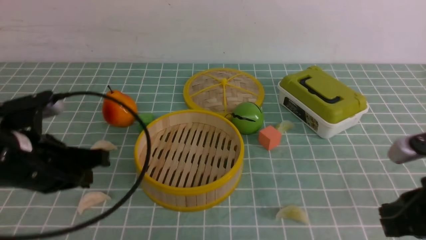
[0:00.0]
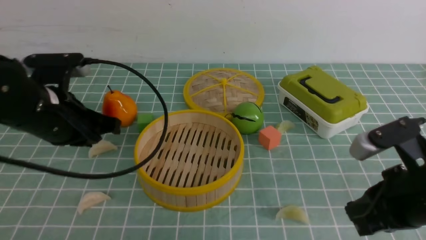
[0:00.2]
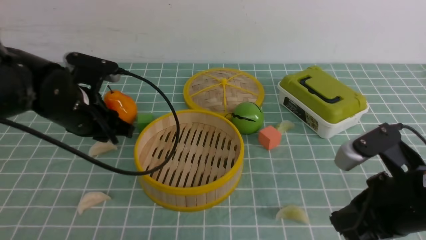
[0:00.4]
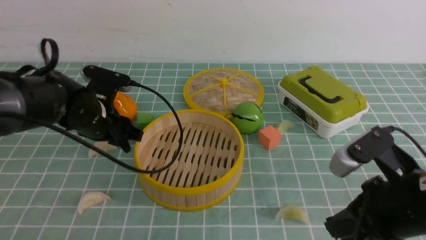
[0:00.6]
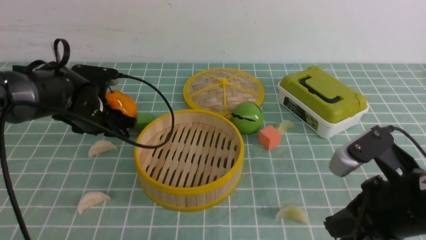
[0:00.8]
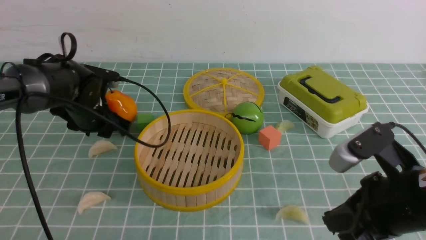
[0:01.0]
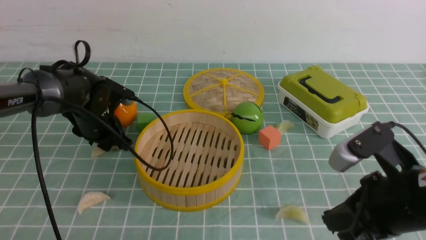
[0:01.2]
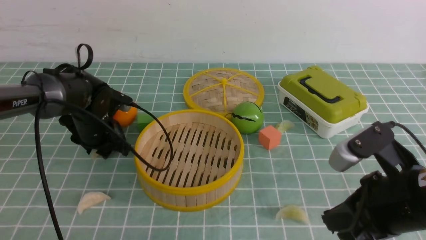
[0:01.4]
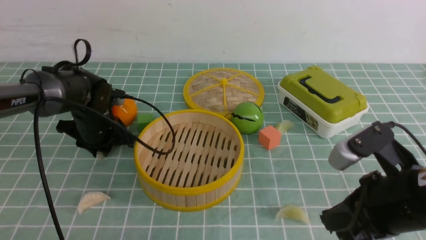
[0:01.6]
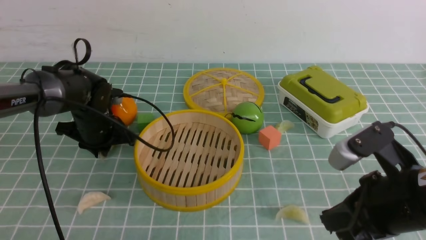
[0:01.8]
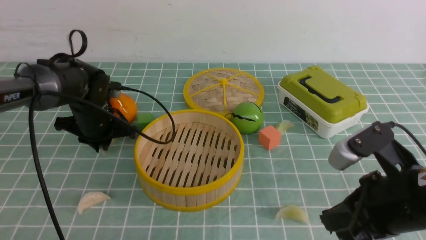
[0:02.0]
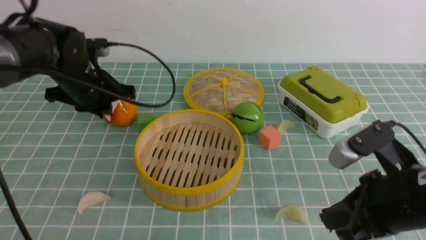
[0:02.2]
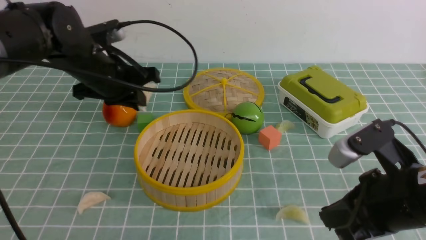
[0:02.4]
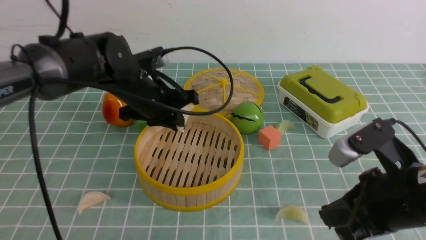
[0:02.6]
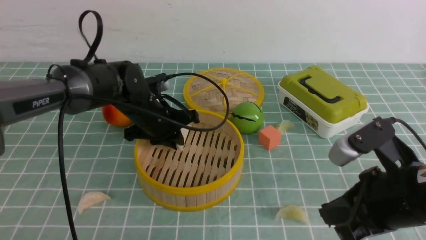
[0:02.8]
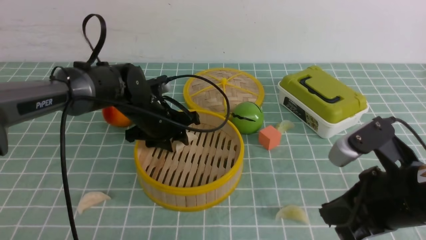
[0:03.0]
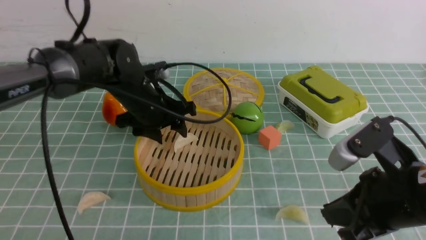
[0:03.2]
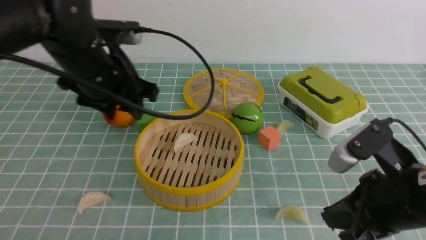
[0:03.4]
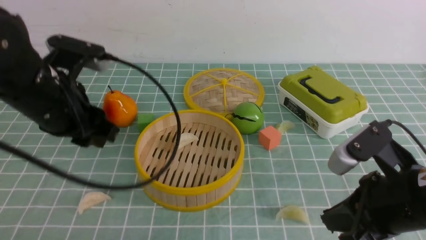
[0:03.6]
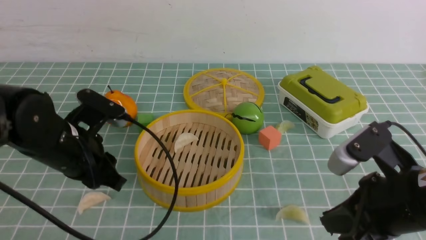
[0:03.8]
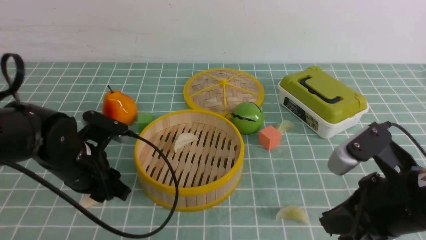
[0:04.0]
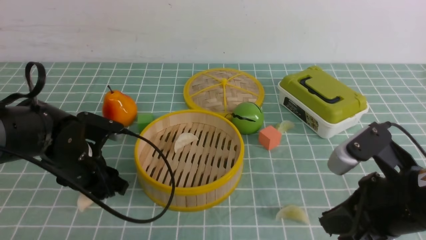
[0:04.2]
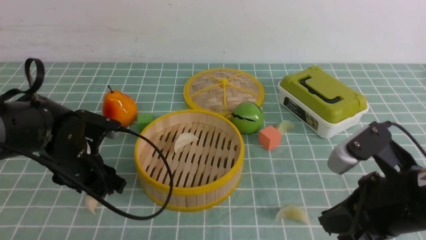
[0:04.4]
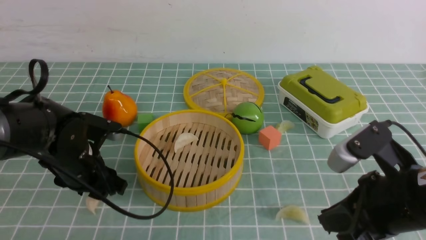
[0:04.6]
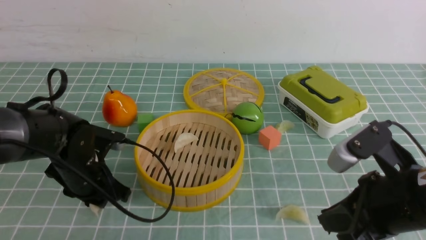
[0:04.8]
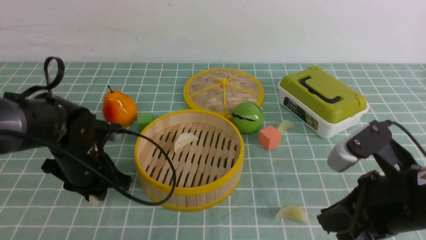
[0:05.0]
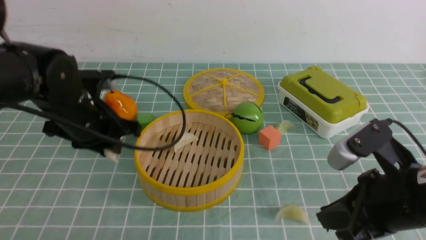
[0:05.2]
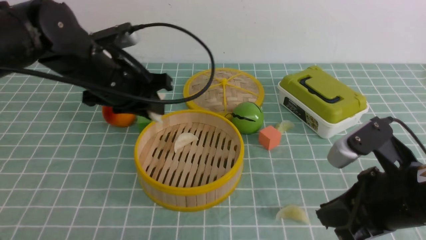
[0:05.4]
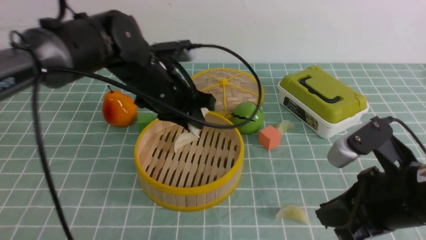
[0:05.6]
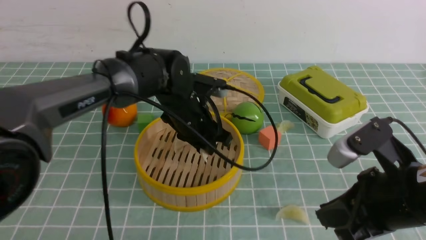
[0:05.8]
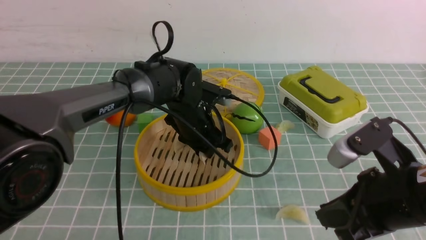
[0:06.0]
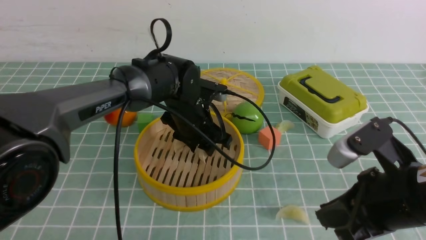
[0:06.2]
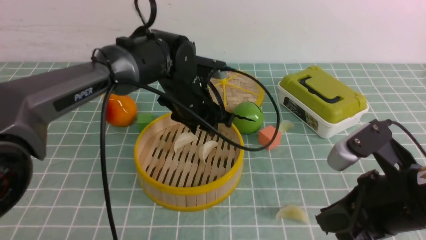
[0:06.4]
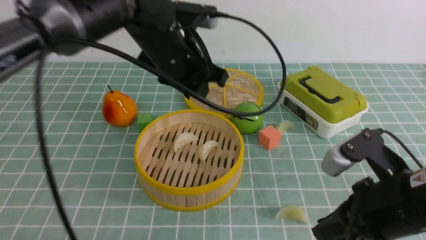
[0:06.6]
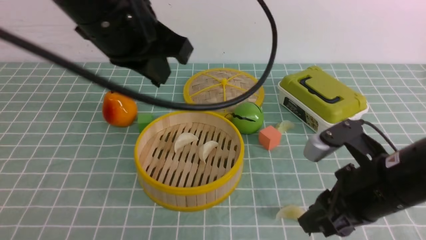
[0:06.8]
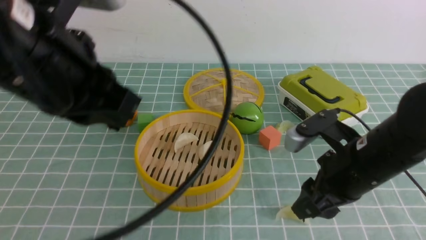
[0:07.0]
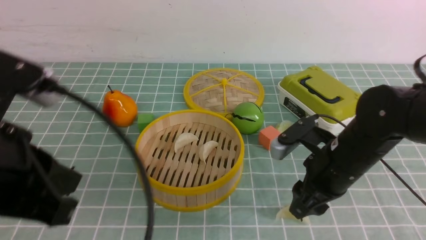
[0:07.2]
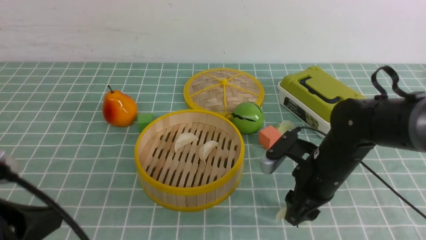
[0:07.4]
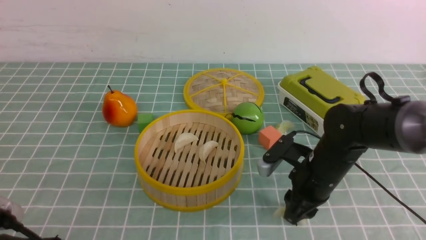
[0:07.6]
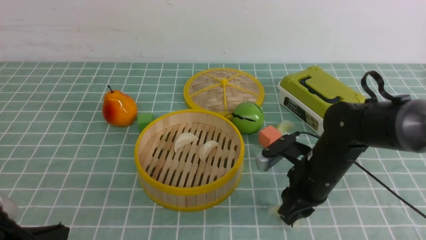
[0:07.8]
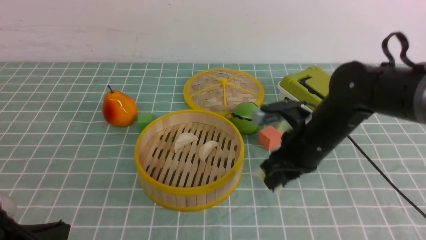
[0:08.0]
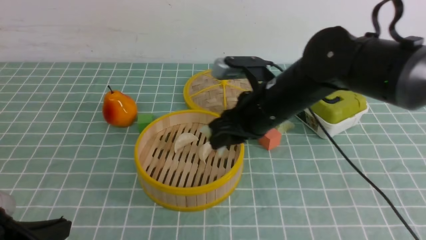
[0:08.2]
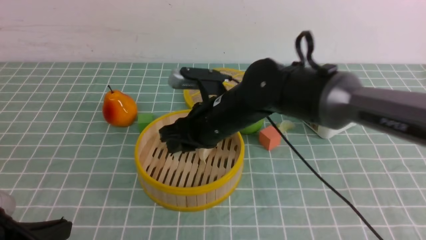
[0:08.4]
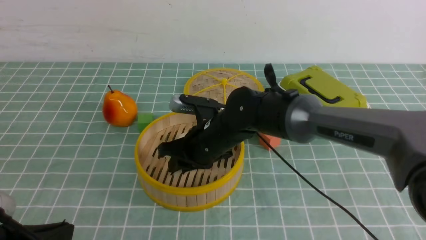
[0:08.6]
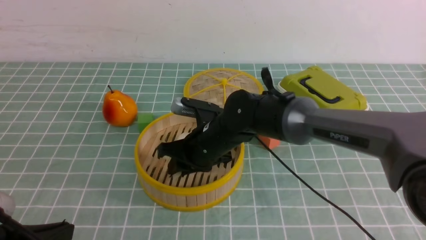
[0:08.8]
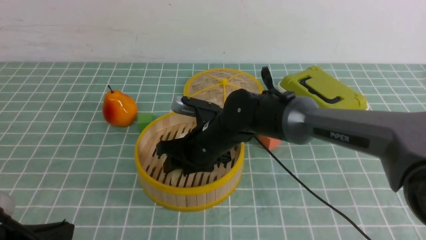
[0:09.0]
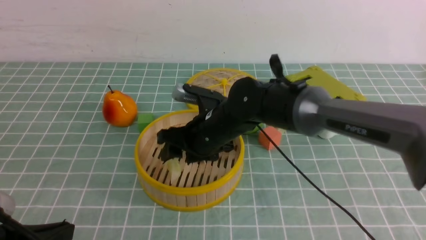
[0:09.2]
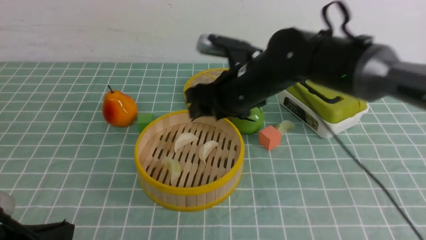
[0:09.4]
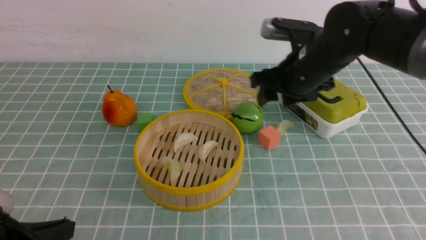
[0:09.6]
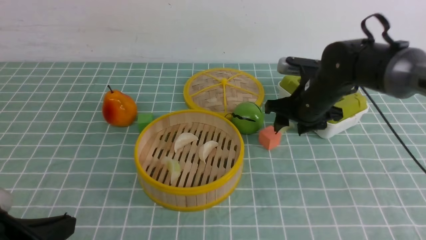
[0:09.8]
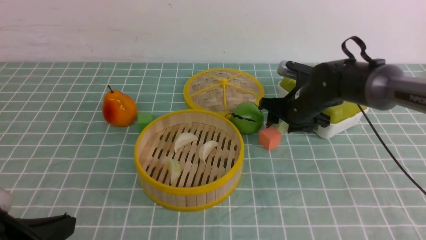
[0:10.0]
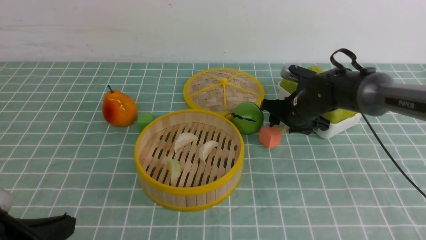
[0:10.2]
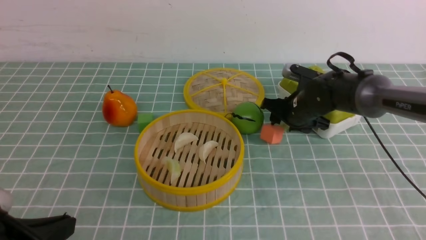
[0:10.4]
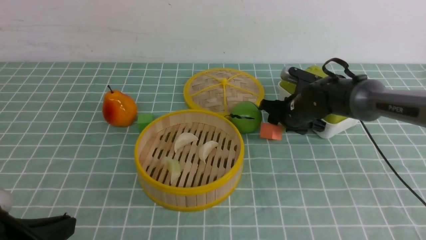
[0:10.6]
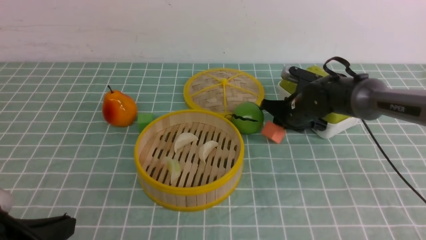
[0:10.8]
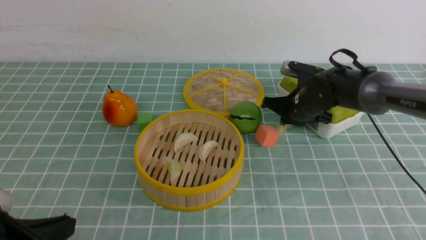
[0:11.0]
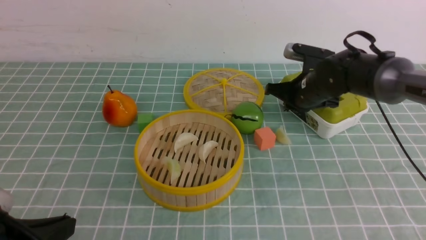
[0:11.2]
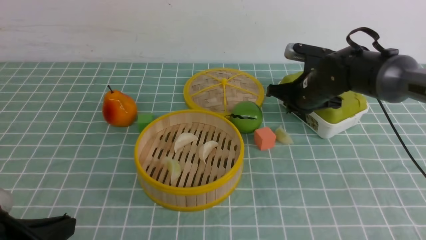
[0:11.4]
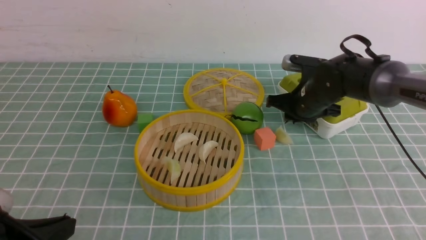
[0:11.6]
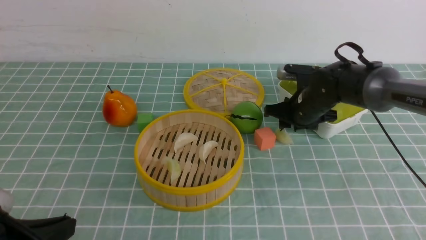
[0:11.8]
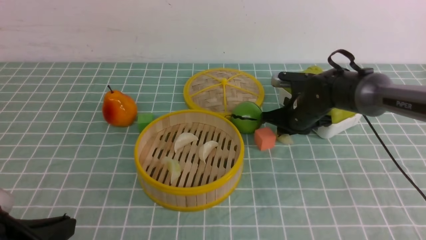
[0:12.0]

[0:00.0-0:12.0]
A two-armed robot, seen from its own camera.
Task of the whole recording: put the dumplings into the steamer on the table with the blue tablecloth.
Step, 0:02.0 to 0:03.0: use the left arm to put the dumpling into the steamer.
Step, 0:03.4 to 0:04.8: use the left arm to grab a dumpling.
Step, 0:05.0 to 0:06.4: use the left arm to put the dumpling into the steamer.
Step, 0:06.6 to 0:07.6: use the right arm to grab a dumpling.
Step, 0:08.0 to 0:09.2: use the right arm to put the dumpling into the steamer.
0:00.0 to 0:01.6: The right gripper shifts approximately 5 cm to the left. Meanwhile the left gripper goes some 20 cm forward and downward, and opens.
0:01.6 to 0:03.0: The left gripper shifts roughly 10 cm to the right, and opens up.
0:03.0 to 0:04.4: The left gripper travels backward and to the left by approximately 15 cm, and moves about 10 cm upward and comes back.
0:04.4 to 0:06.0: The left gripper shifts approximately 20 cm to the right and forward.
0:06.0 to 0:07.6: The left gripper shifts approximately 35 cm backward and to the left, and closes. Meanwhile the right gripper is displaced forward and downward by some 15 cm, and opens its fingers.
0:07.6 to 0:09.0: The right gripper heads to the left, covering roughly 15 cm.
0:09.0 to 0:10.4: The right gripper shifts about 20 cm to the right and forward.
0:10.4 to 0:12.0: The right gripper closes up.

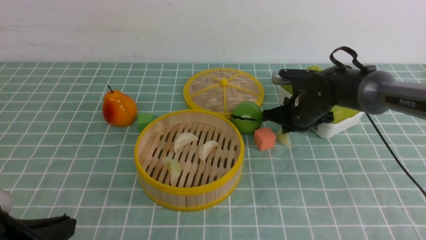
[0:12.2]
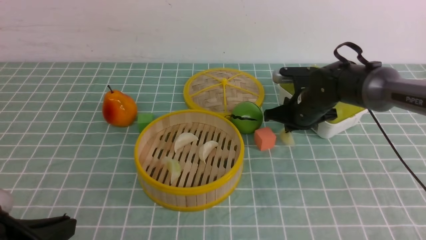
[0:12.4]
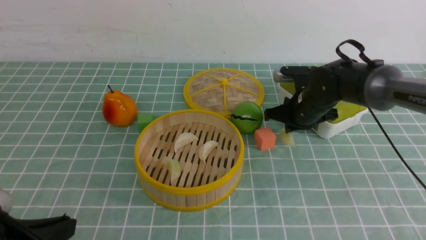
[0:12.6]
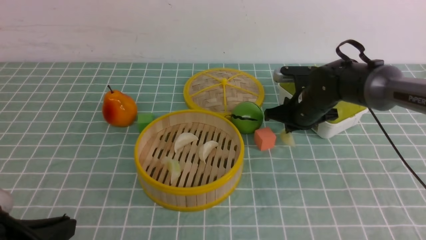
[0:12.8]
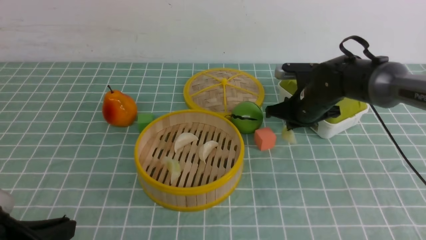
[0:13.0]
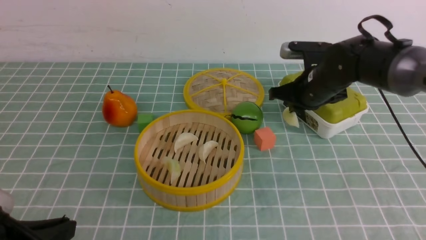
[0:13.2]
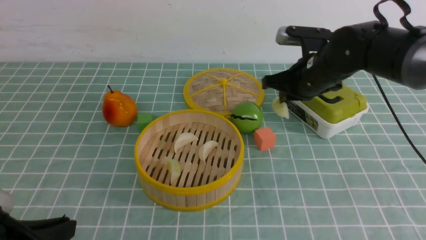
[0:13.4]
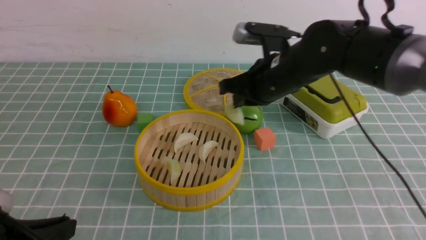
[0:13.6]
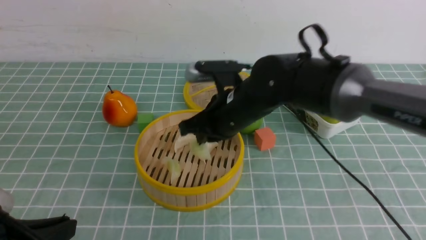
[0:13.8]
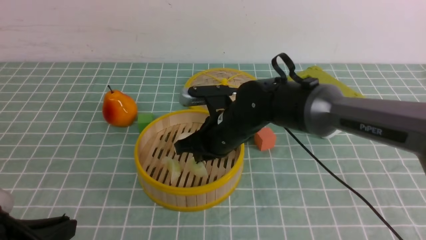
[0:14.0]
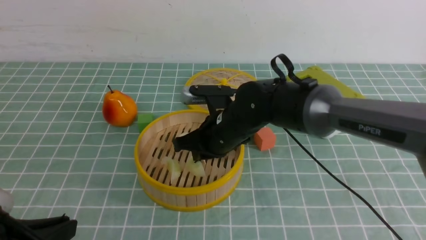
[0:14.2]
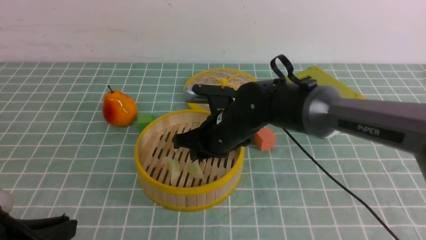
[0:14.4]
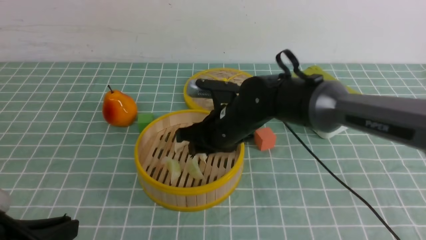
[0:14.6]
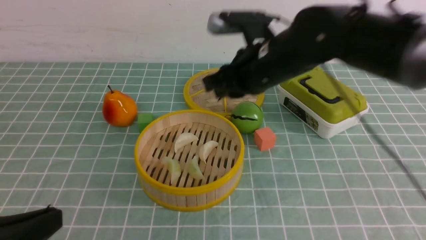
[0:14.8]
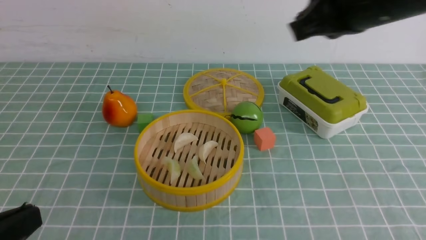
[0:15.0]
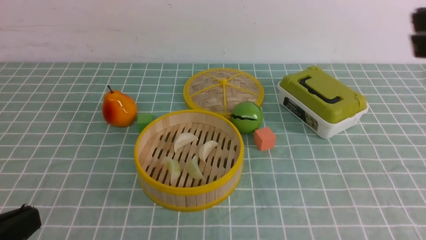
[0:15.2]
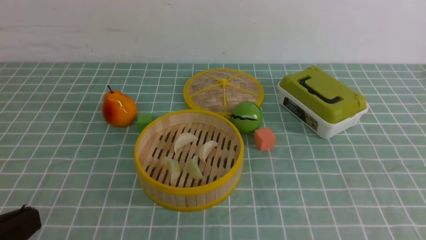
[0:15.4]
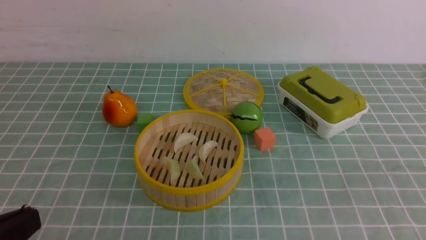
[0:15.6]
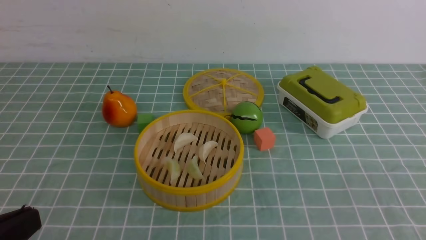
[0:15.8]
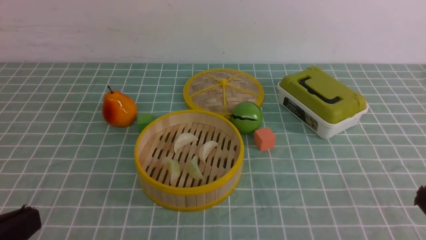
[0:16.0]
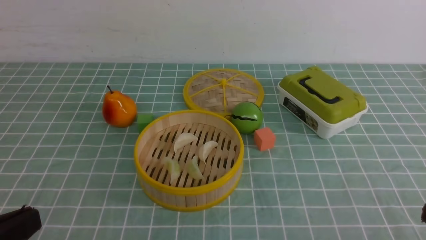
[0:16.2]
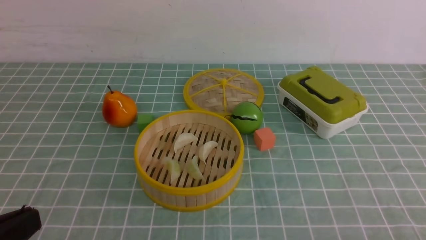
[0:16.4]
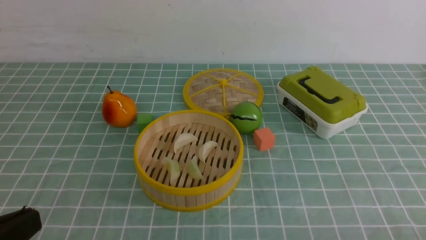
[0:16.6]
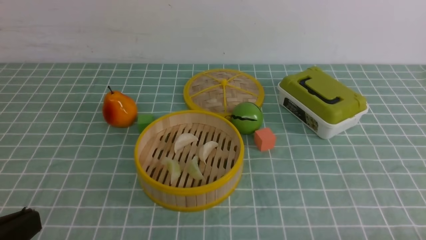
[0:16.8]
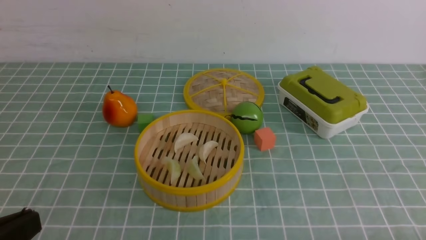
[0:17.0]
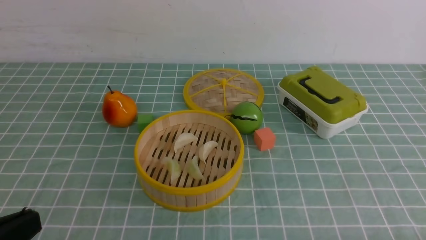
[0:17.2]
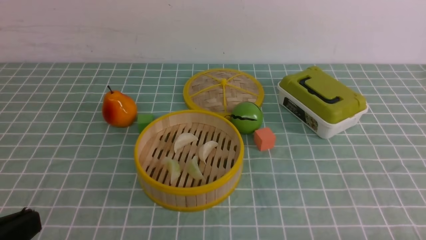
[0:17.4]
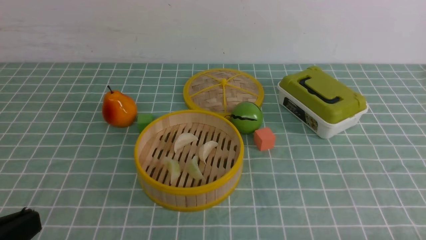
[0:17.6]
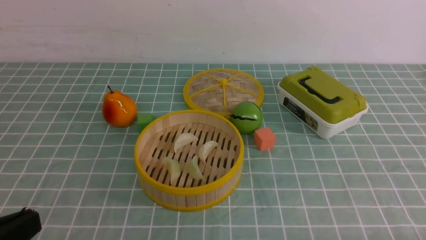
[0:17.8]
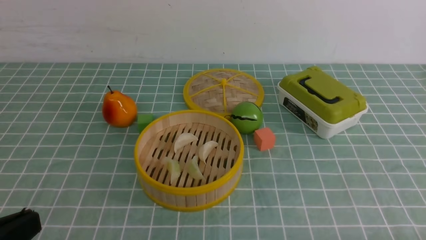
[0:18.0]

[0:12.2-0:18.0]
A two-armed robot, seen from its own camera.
Task of the whole recording: put the dumplings into the steamer on the table with the blue tablecloth.
Step, 0:12.4 to 0:14.6: use the right arm to put the dumpling into the steamer.
0:12.2 to 0:13.6: The right gripper is displaced upward, to the left and backward by approximately 15 cm.
0:13.6 to 0:15.0: The left gripper moves roughly 5 cm. The right gripper goes roughly 20 cm upward, backward and to the right, and opens, then closes once more.
0:15.0 to 0:16.6: The right gripper is displaced downward, backward and to the right by approximately 35 cm.
